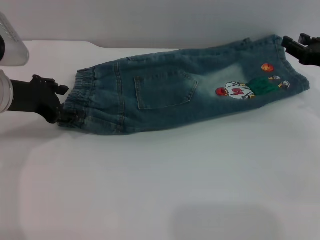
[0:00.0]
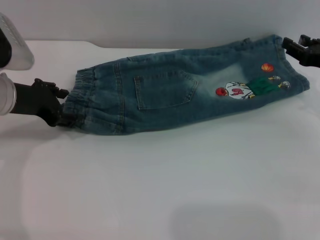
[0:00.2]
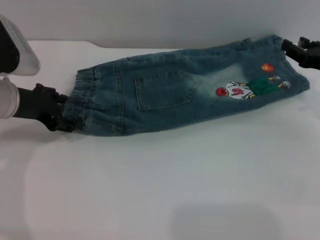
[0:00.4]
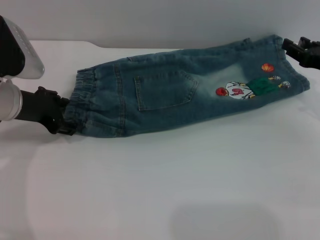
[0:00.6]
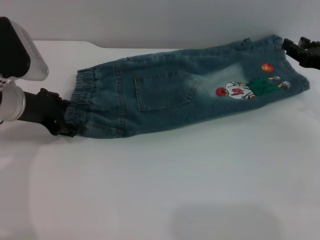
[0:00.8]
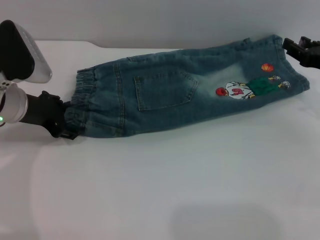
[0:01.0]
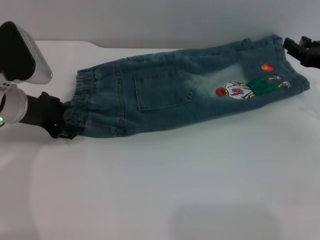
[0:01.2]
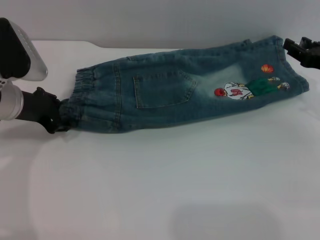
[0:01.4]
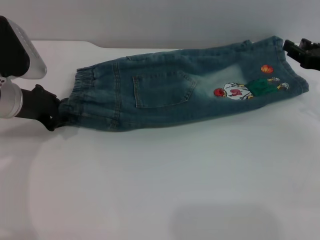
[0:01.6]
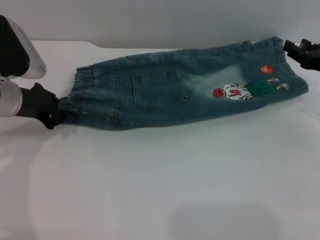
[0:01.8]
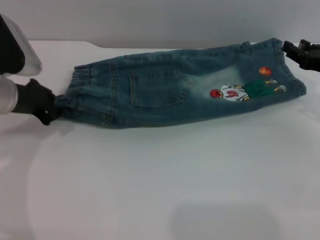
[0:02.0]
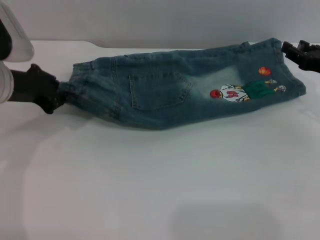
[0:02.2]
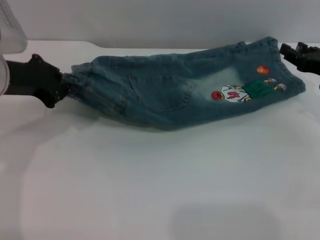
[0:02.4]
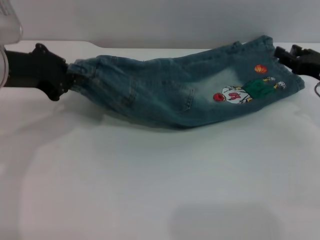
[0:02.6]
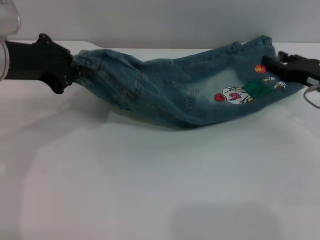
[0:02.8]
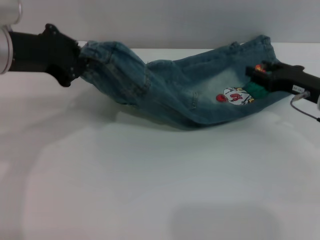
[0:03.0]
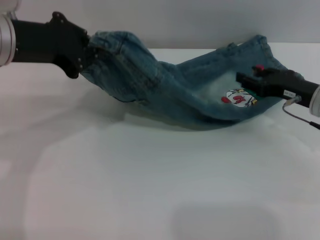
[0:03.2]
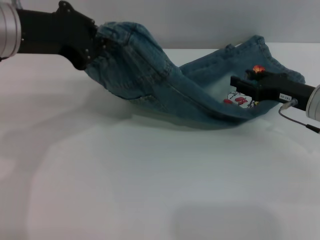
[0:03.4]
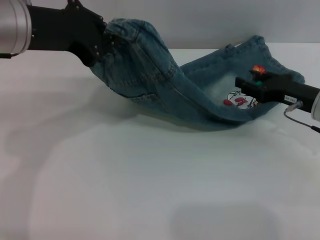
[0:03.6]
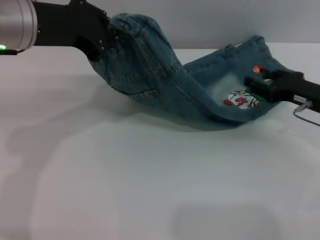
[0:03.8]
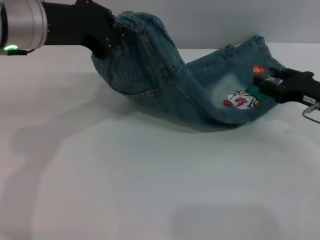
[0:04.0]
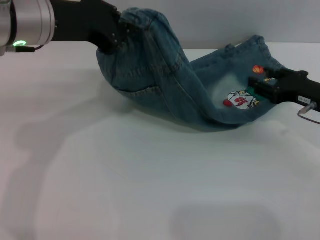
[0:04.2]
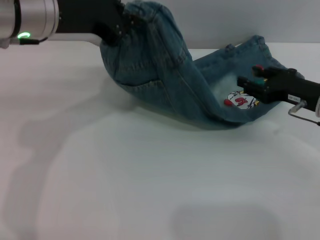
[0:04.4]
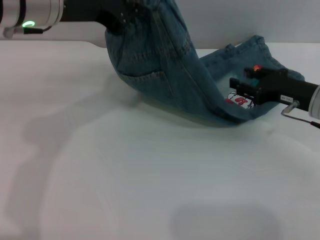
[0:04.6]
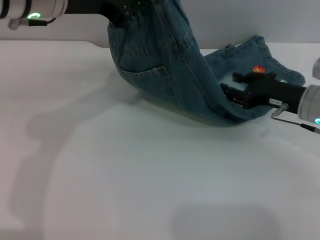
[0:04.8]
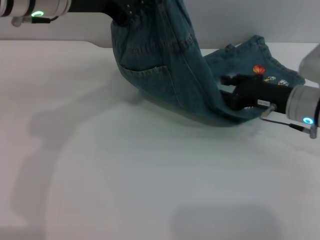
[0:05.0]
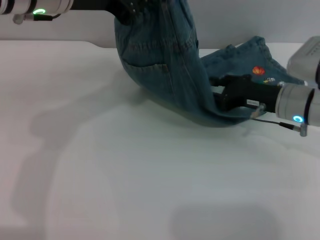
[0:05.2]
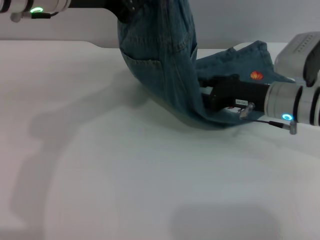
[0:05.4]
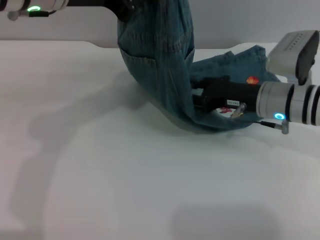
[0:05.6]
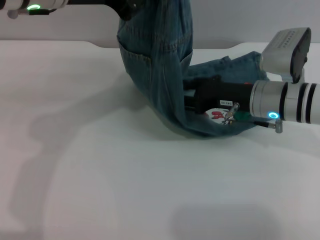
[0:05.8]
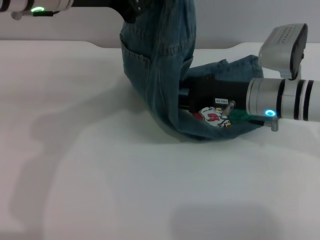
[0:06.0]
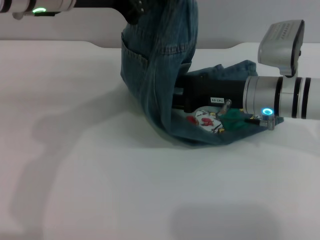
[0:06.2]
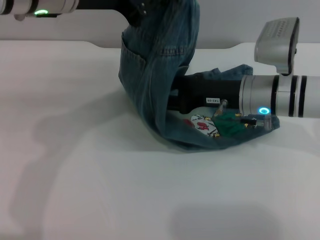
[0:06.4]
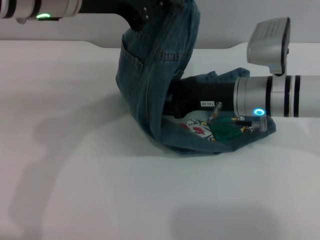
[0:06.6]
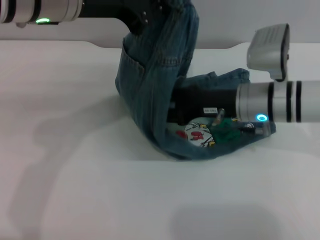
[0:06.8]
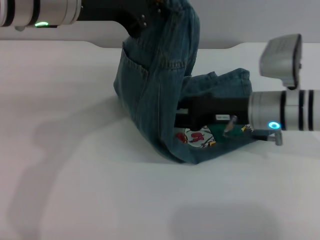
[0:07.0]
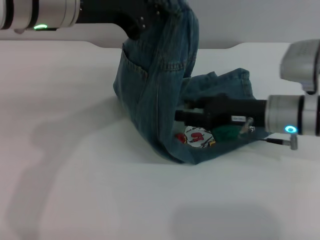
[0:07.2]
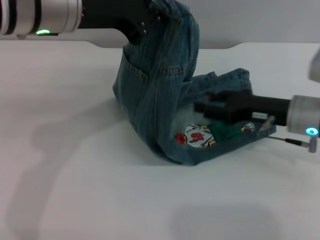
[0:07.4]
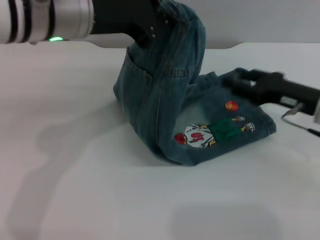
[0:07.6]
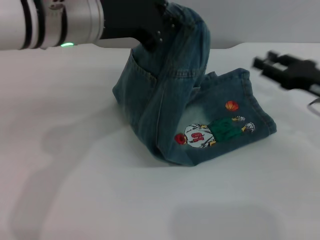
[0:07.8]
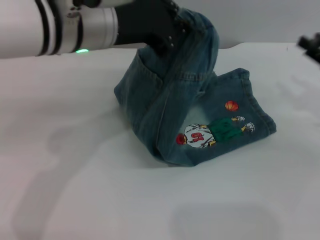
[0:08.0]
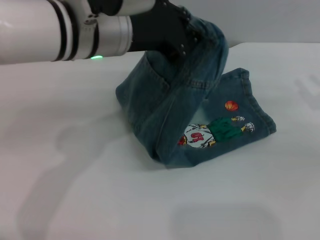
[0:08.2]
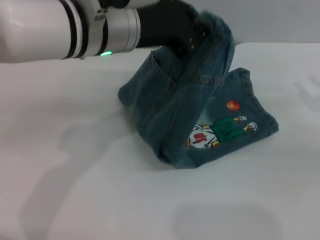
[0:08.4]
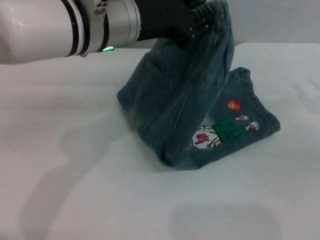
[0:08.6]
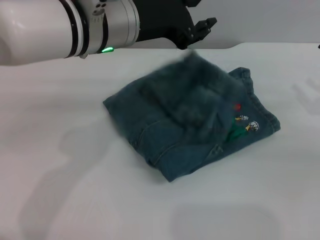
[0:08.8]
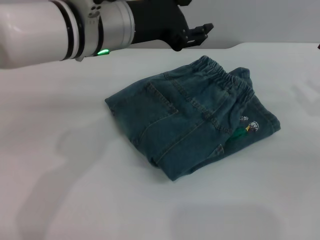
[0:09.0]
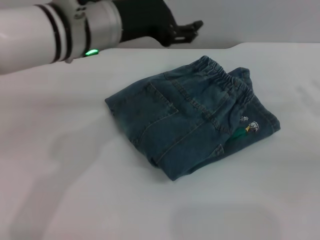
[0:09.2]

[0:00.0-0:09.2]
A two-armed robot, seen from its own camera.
Step, 0:00.0 to 0:08.8: Fold the pants from left to right with the left gripper.
0:00.0 to 0:01.6: There are only small adjustments of the grippers.
0:01.6 to 0:03.0: The left gripper goes about 10 cm upward, and closes its fingers.
0:03.0 to 0:04.6: The left gripper is displaced to the right by roughly 5 cm.
0:04.6 to 0:06.2: The right gripper moves to the left, some 10 cm.
0:06.2 to 0:07.6: The right gripper is displaced to the right by approximately 10 cm.
0:07.6 to 0:09.2: The right gripper goes approximately 10 cm to the right. Meanwhile the left gripper opens up.
